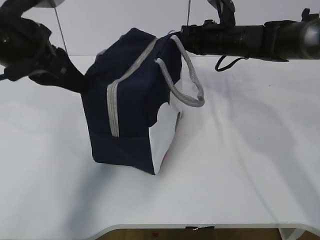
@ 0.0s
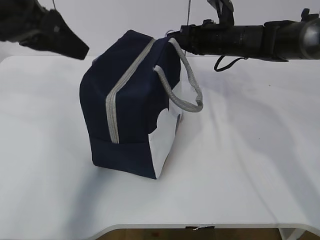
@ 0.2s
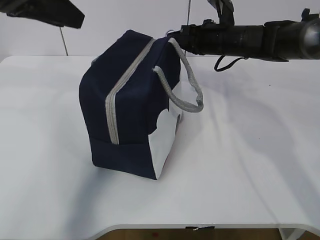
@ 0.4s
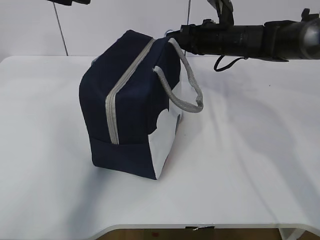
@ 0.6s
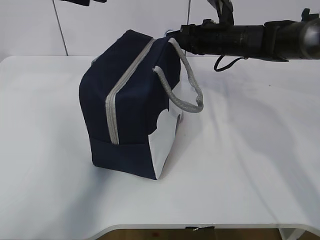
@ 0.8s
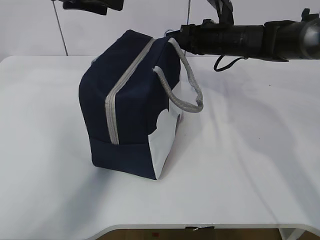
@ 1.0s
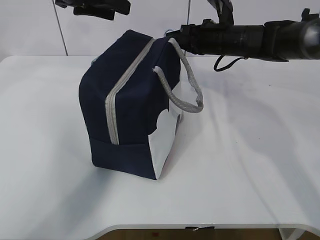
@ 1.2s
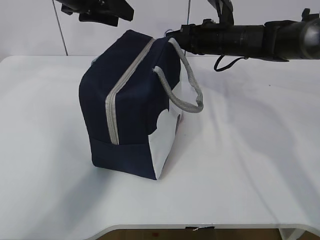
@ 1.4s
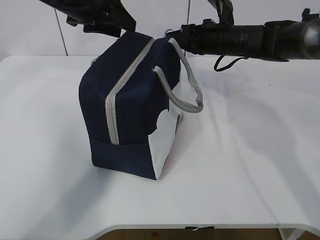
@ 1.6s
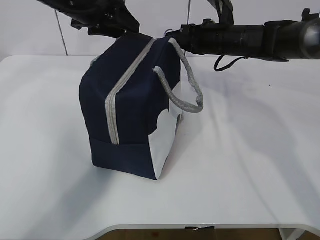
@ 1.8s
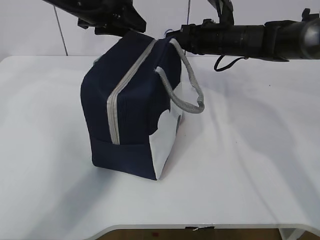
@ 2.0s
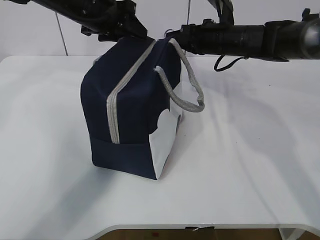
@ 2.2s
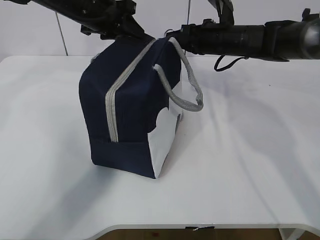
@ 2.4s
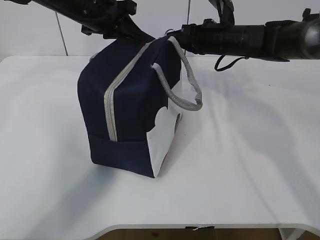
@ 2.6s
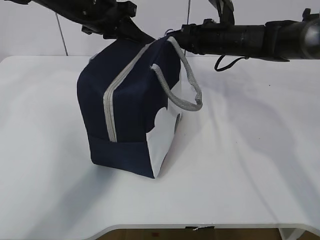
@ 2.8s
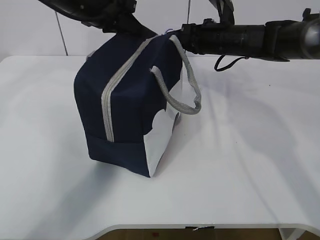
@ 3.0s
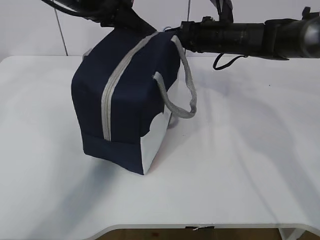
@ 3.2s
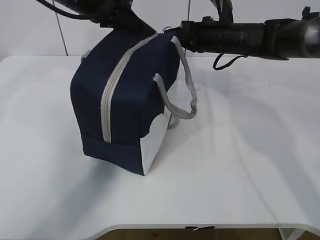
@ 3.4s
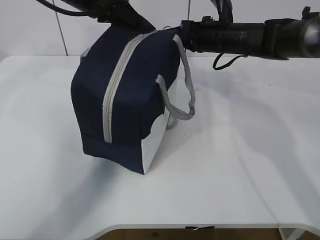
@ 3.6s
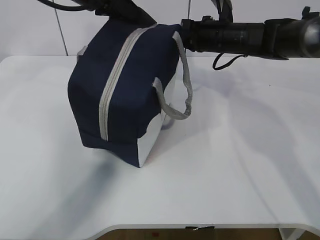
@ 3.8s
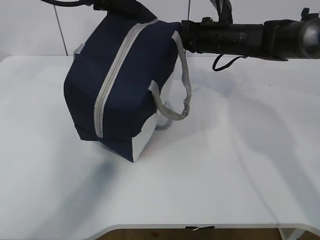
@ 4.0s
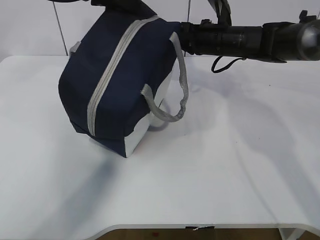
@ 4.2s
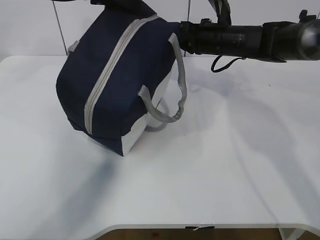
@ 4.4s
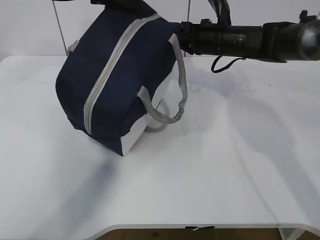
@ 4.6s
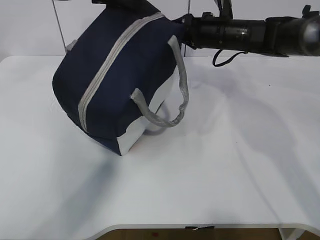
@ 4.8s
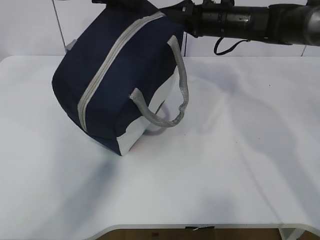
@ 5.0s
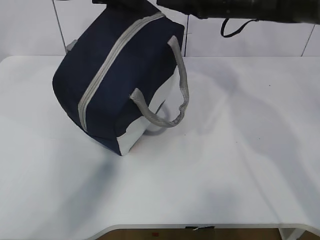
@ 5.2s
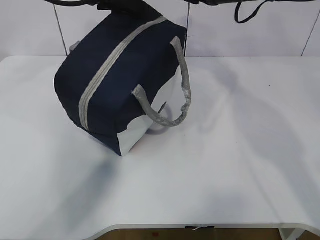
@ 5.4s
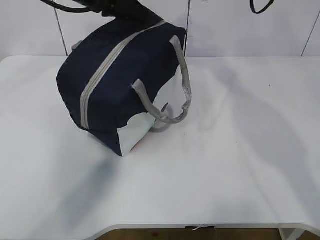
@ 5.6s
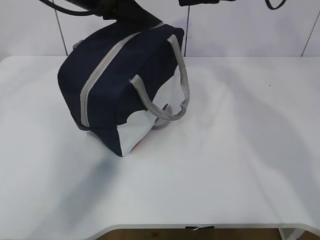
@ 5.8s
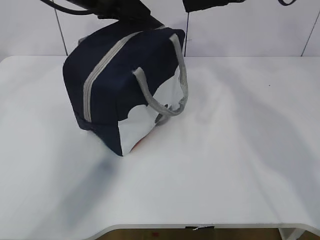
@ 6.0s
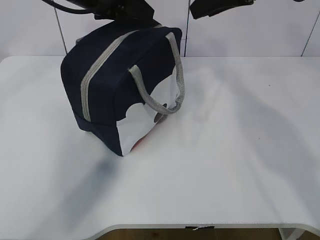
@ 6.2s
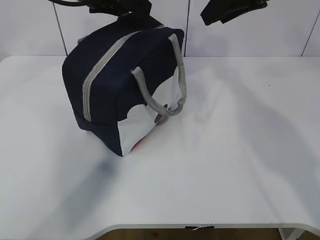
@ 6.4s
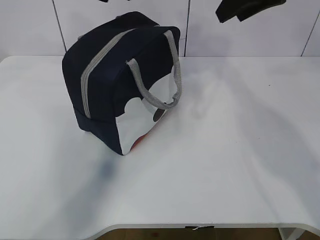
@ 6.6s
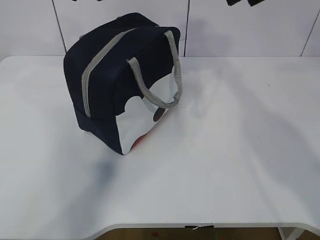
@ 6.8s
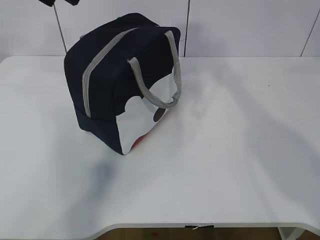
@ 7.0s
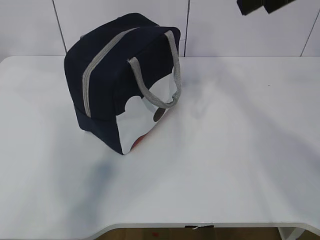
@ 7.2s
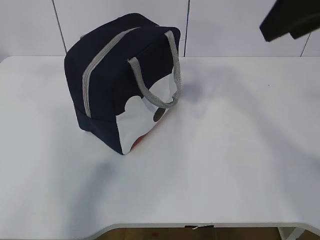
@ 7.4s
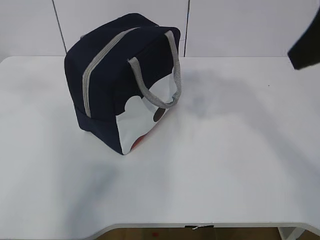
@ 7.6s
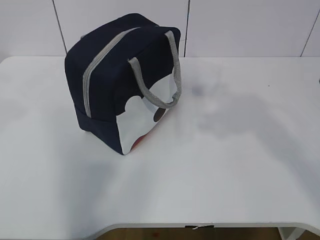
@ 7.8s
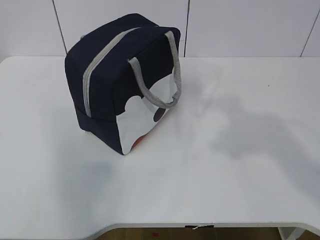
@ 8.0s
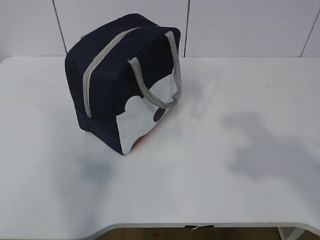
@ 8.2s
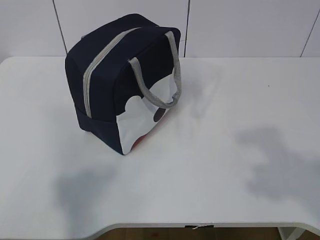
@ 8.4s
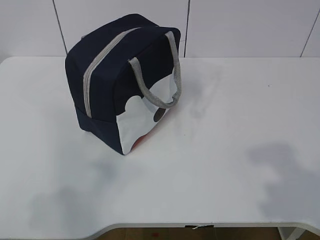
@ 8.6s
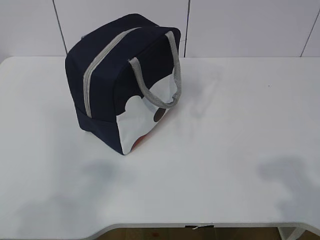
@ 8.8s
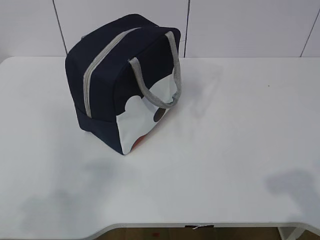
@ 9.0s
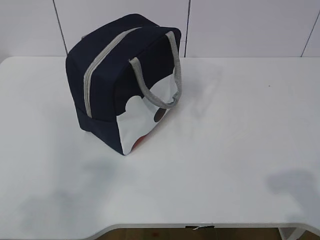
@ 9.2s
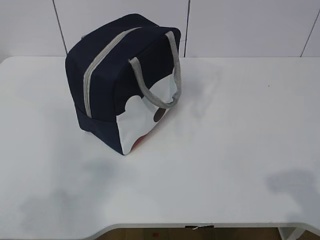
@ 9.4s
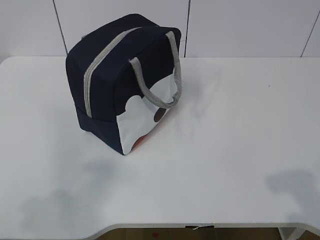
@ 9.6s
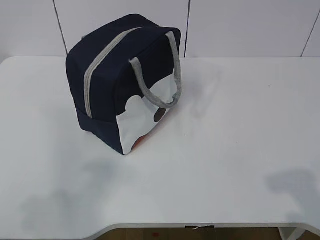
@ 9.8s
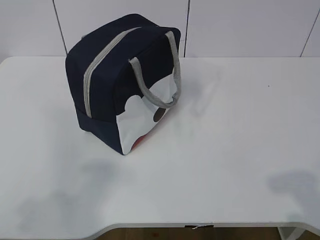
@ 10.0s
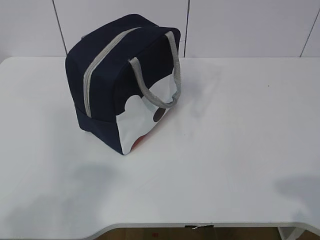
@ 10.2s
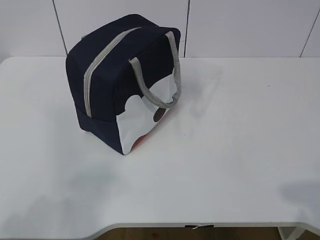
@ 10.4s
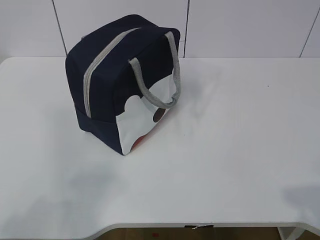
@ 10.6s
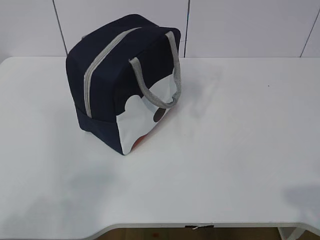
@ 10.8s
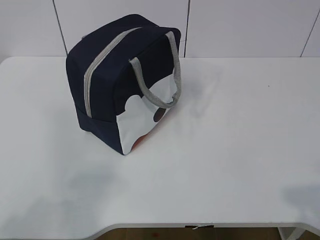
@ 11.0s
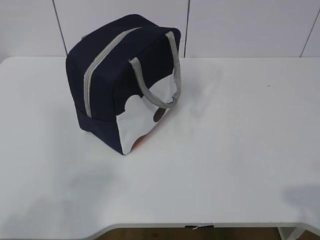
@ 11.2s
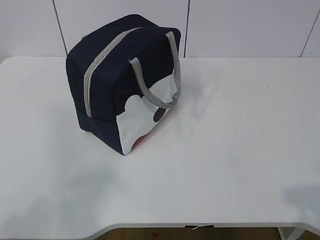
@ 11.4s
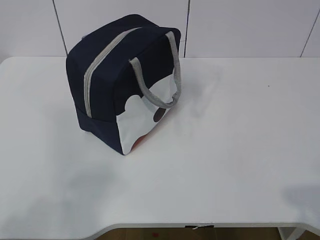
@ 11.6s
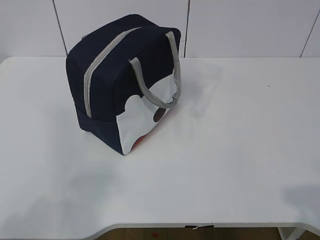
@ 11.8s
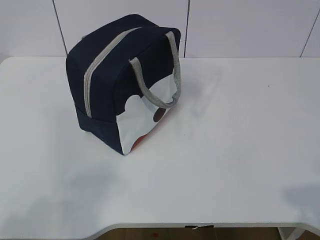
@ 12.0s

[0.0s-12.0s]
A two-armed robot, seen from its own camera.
Step, 0.0s to 5.4s: zip up the zipper to close the bag.
0.0s to 1.6s: The left gripper shifts about 15 cm forward, and opens its fingers.
1.6s to 3.0s: The left gripper closes.
3.0s to 4.4s: The left gripper heads upward, covering about 5 cm.
4.4s to 6.0s: The left gripper ends up roughly 5 cm from where it was, and opens. Meanwhile the right gripper moves upward and backward, roughly 15 cm, and opens.
6.0s to 7.6s: The right gripper travels backward by some 20 cm; the left gripper heads backward, upward and to the left, covering about 30 cm.
7.6s to 9.0s: The right gripper goes some 25 cm backward and downward; the left gripper heads backward, downward and to the left, covering roughly 30 cm.
10.4s to 12.0s: Both grippers stay put.
